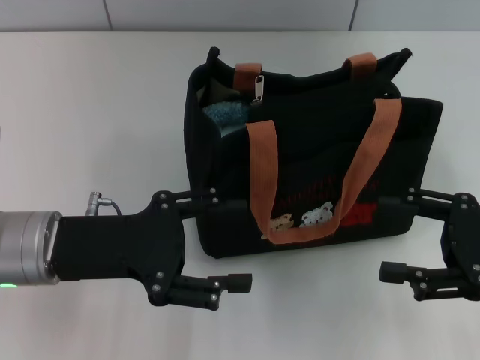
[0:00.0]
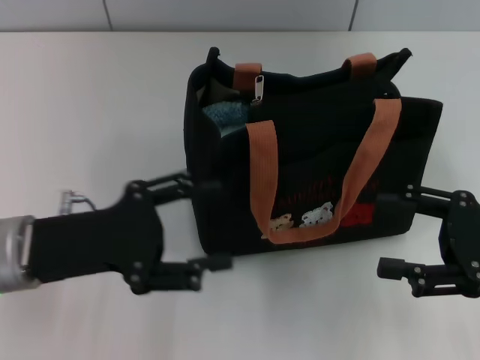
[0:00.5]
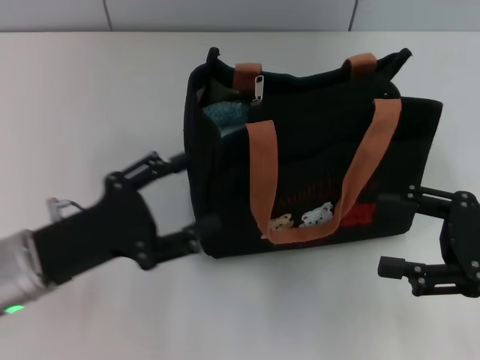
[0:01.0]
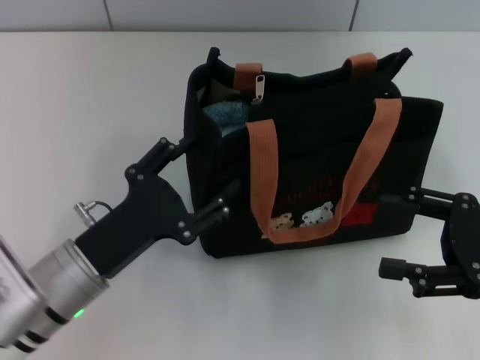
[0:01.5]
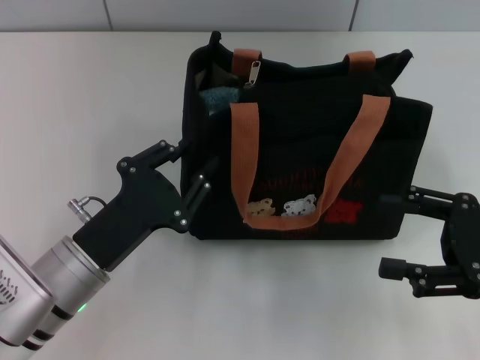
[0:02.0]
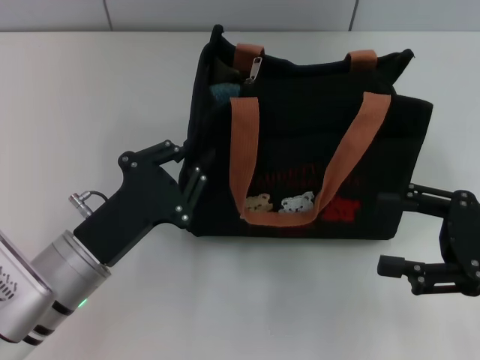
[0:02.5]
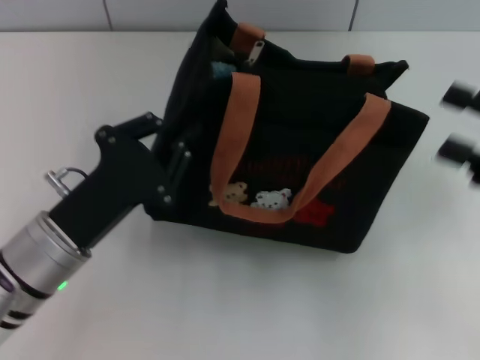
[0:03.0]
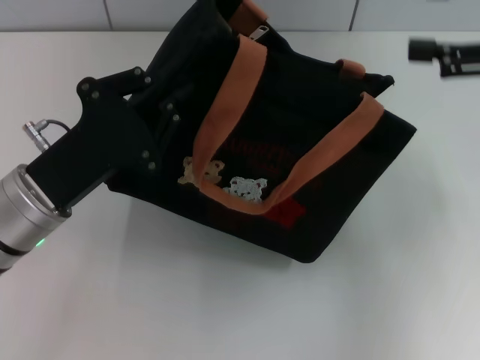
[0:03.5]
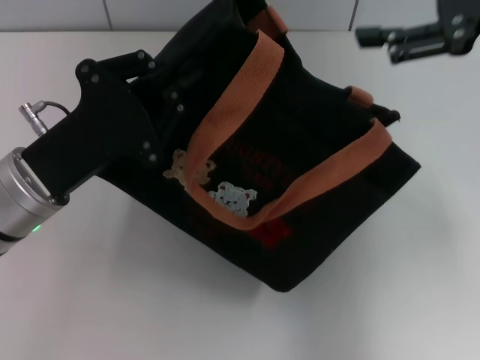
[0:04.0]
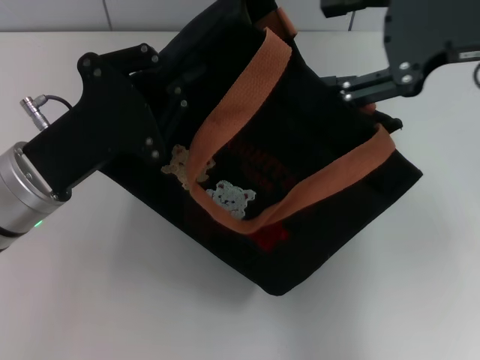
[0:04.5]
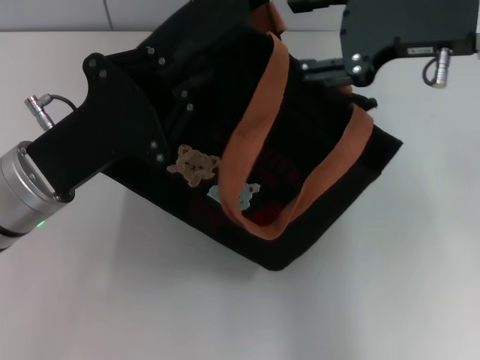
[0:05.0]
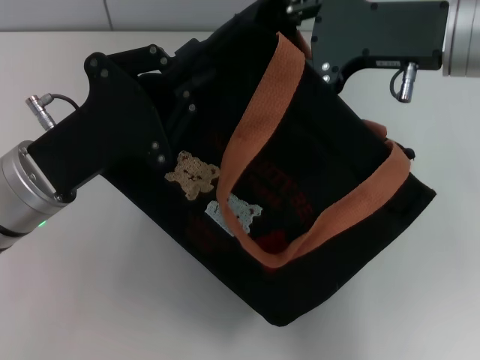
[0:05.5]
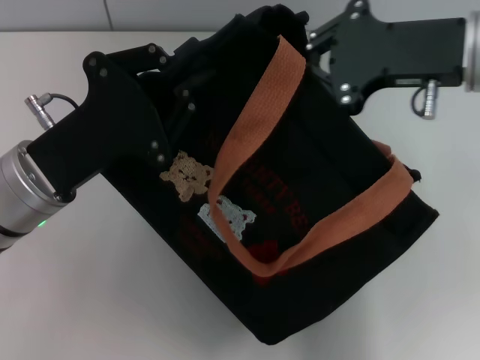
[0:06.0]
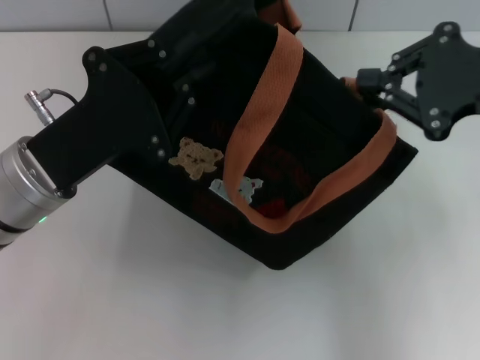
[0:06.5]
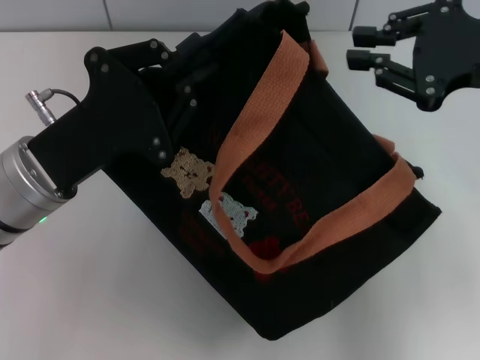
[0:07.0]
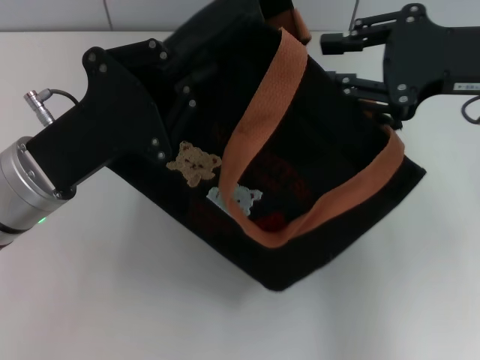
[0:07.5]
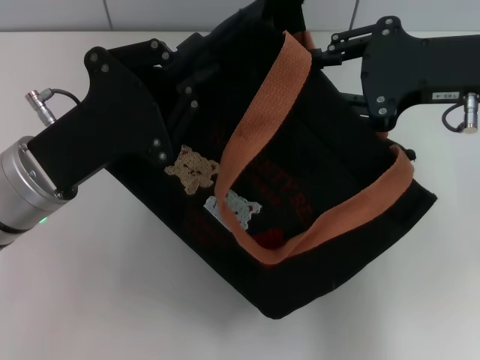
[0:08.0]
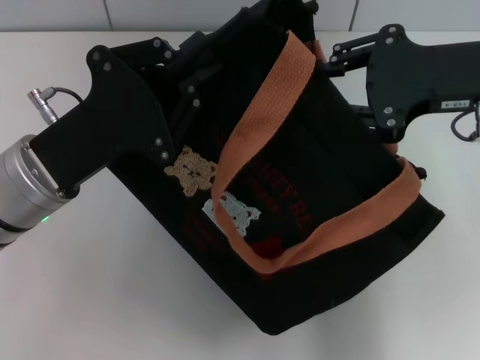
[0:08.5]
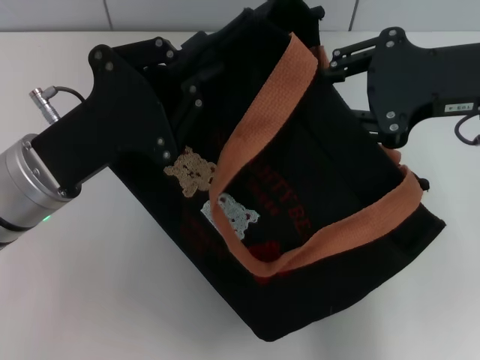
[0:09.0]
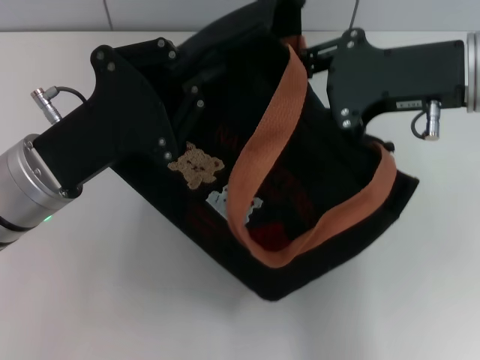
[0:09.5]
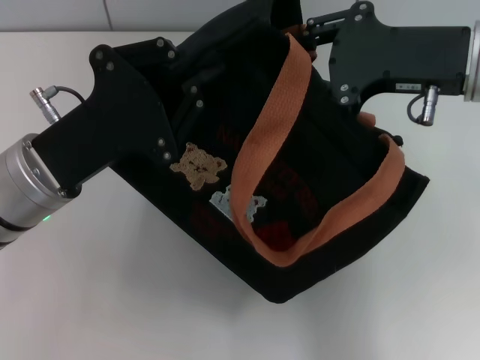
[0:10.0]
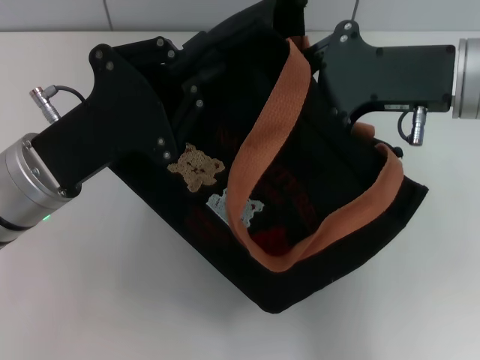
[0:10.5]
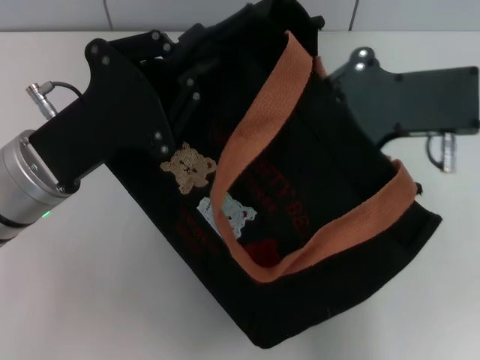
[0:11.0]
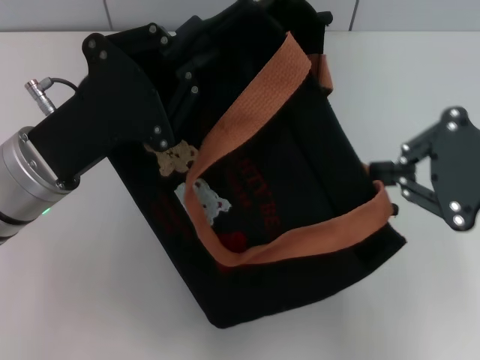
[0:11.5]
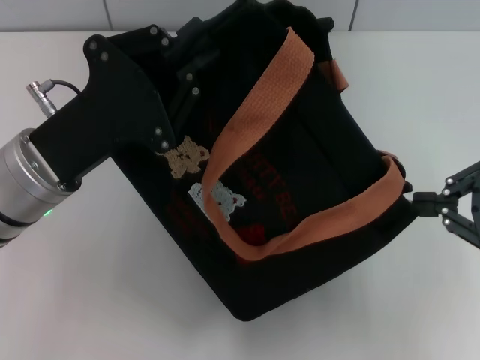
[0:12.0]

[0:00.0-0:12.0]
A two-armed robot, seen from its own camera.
0:00.0 to 0:02.0: The left gripper is displaced downward by some 5 cm, and closes up.
0:02.0 to 0:04.0: The right gripper goes about 20 cm upward and forward. The left gripper travels upward and forward by roughly 10 cm, and closes its fingers.
0:04.0 to 0:06.0: The right gripper goes approximately 10 cm downward and to the left, and closes.
0:06.0 to 0:08.0: The right gripper opens its fingers.
0:08.0 to 0:10.0: There are only small adjustments of the grippers.
0:10.0 to 0:12.0: The right gripper goes approximately 15 cm to the right and backward, and closes up.

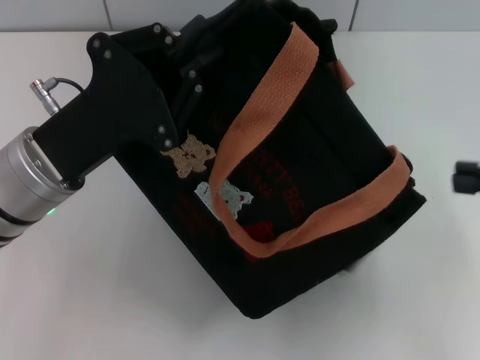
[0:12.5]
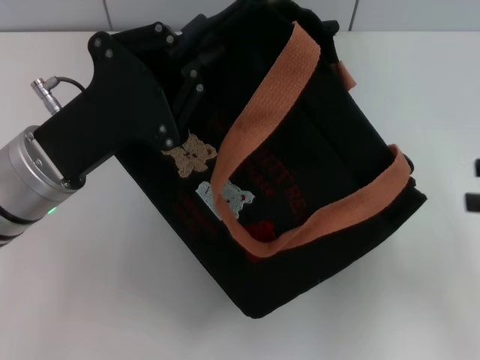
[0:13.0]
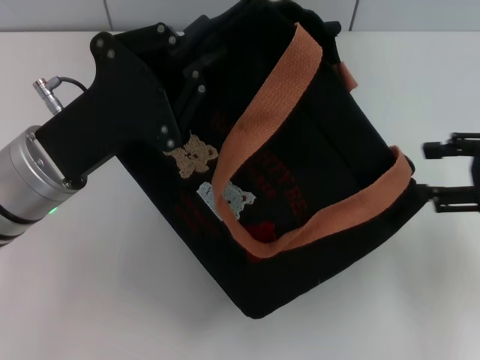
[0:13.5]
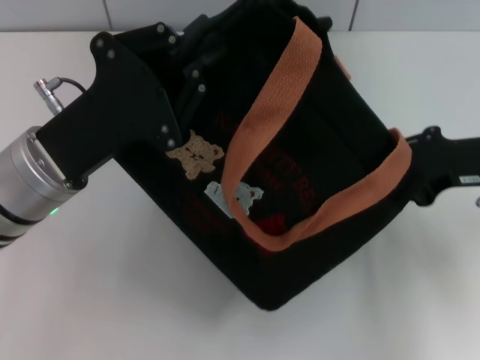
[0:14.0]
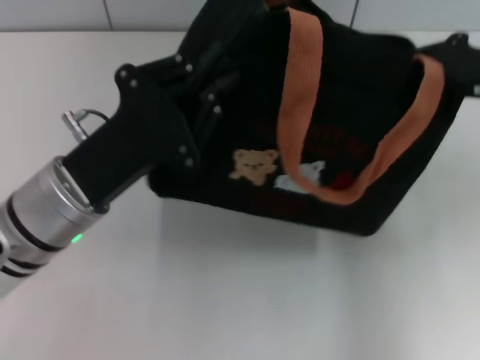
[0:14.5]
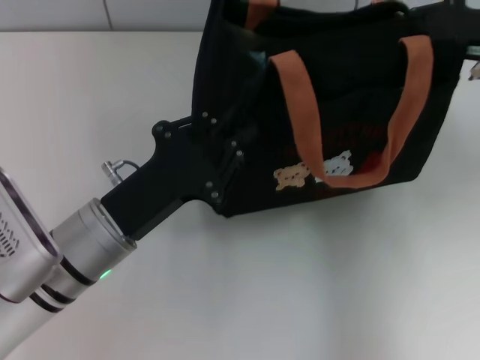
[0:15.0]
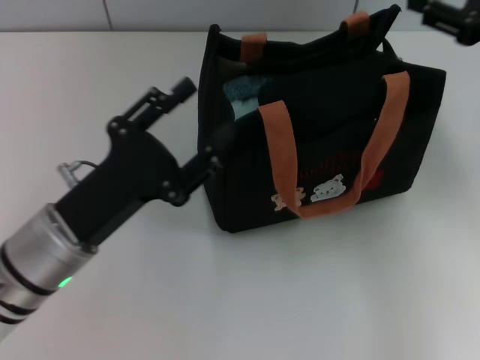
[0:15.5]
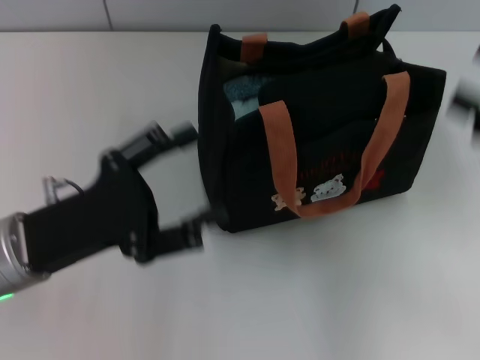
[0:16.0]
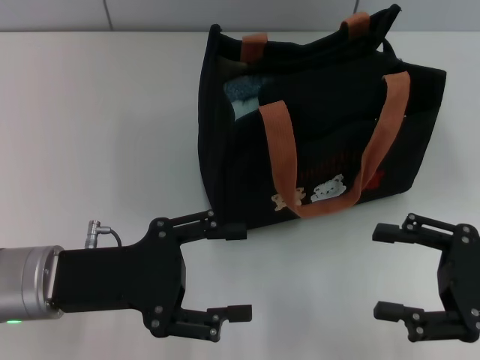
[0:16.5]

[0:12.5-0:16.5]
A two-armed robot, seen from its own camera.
Step, 0:13.0 to 0:15.5: Grab the bag with your left hand.
0:12.5 to 0:14.5: The right gripper goes roughly 15 cm forward and to the left, and opens and closes again.
0:14.5 to 0:16.5: The right gripper moves backward and downward, some 15 cm, and opens its fingers. Meanwhile the left gripper changes place by approximately 5 cm, and opens up.

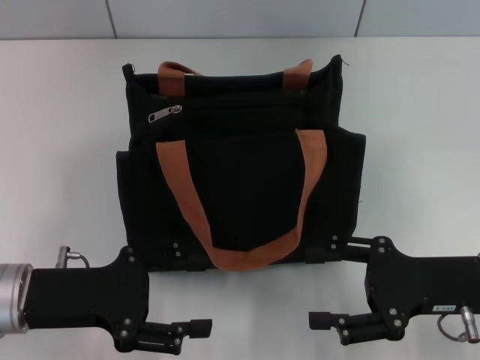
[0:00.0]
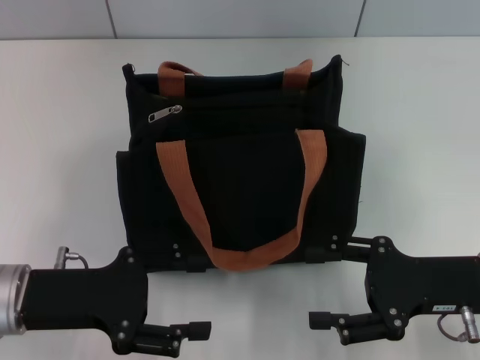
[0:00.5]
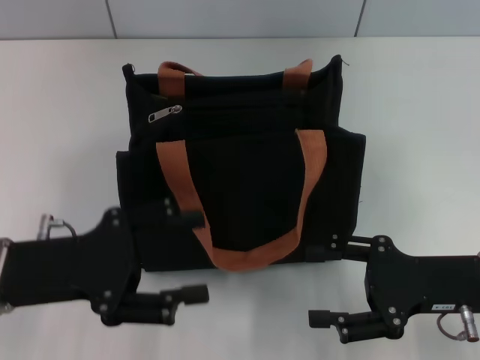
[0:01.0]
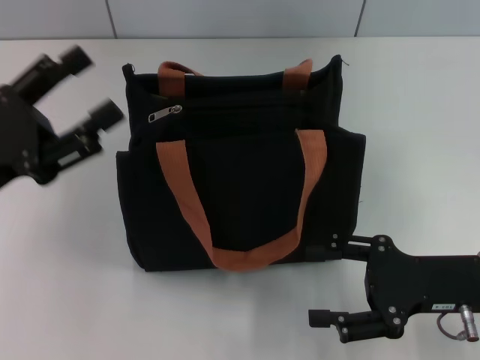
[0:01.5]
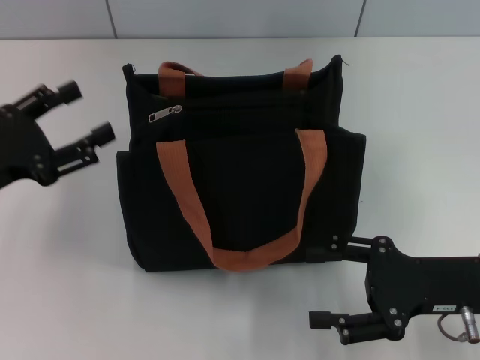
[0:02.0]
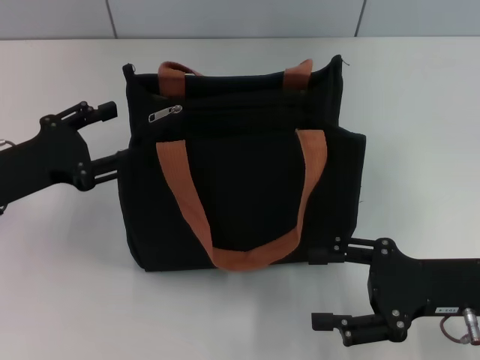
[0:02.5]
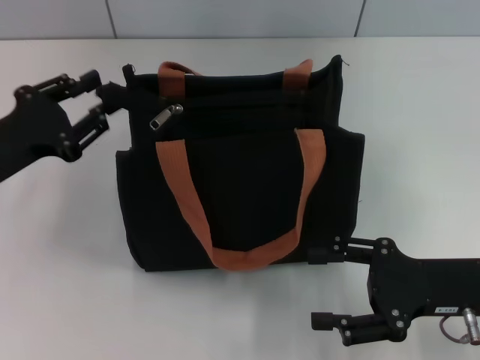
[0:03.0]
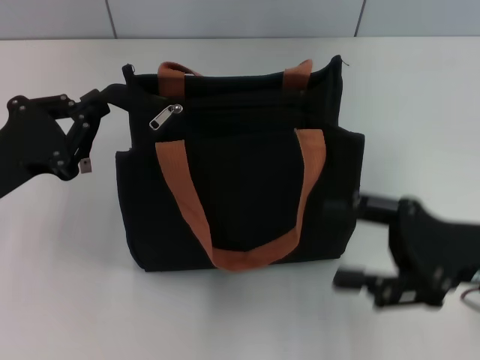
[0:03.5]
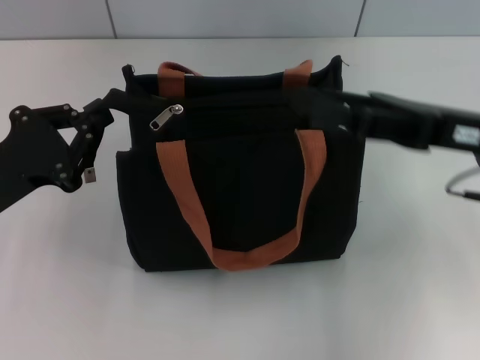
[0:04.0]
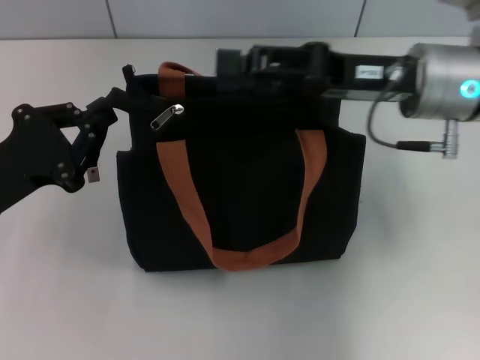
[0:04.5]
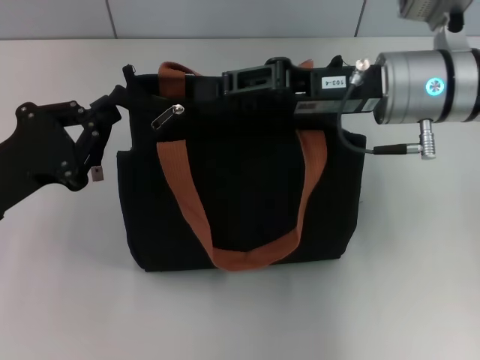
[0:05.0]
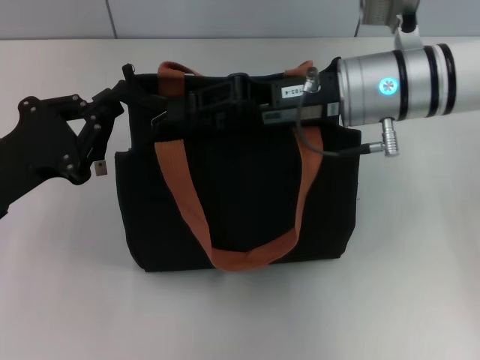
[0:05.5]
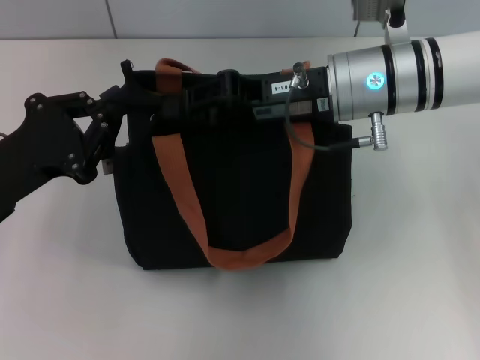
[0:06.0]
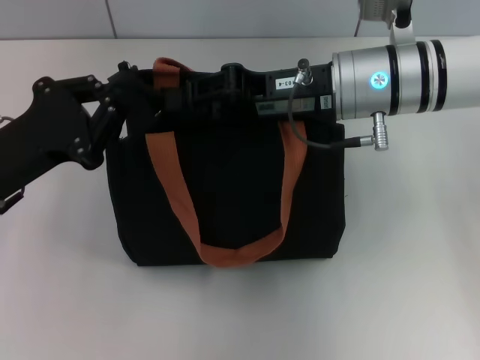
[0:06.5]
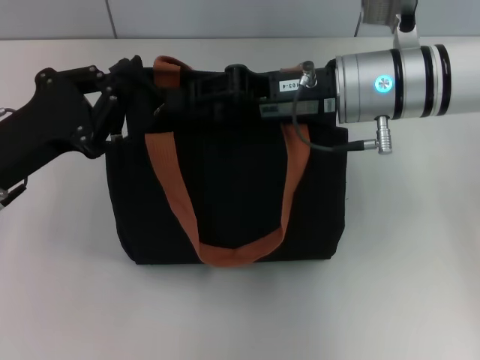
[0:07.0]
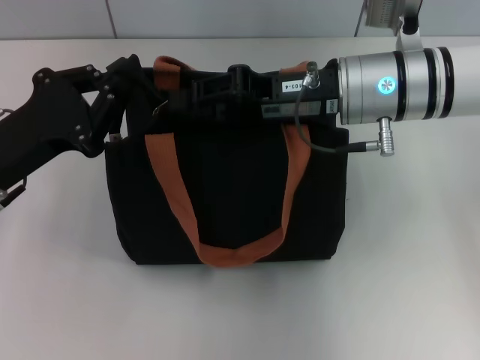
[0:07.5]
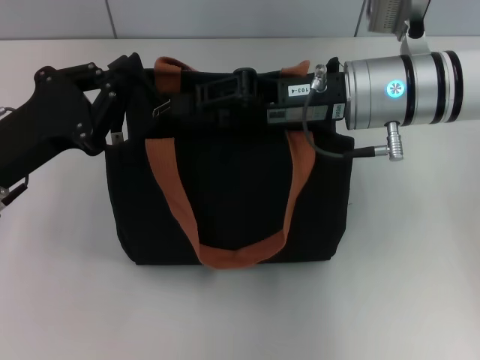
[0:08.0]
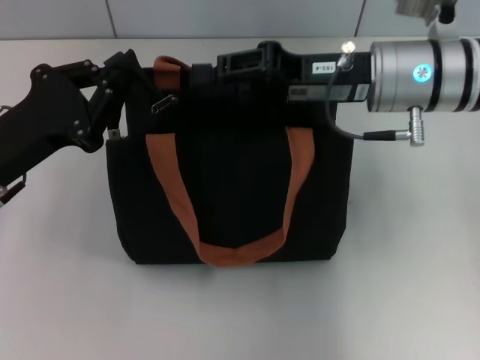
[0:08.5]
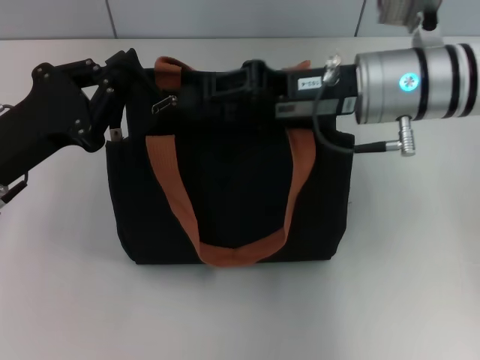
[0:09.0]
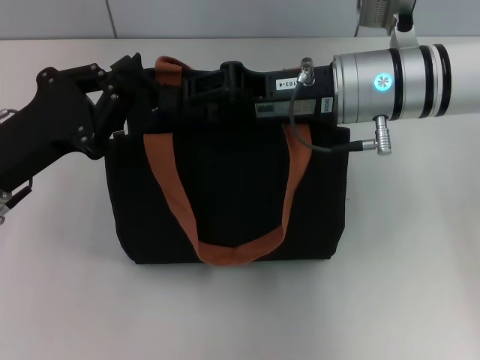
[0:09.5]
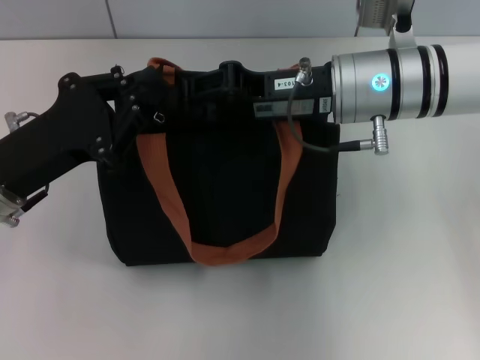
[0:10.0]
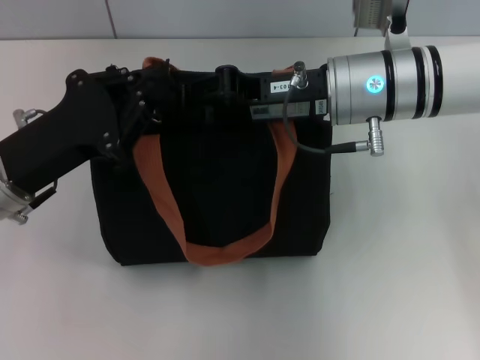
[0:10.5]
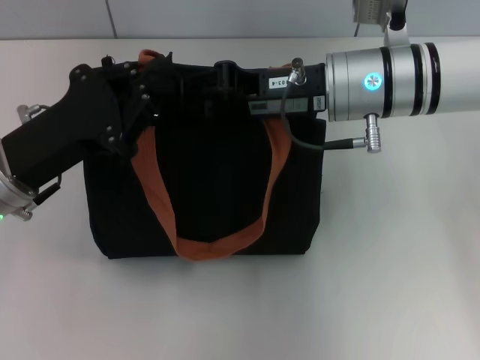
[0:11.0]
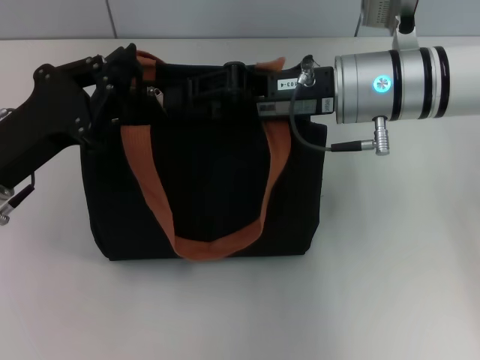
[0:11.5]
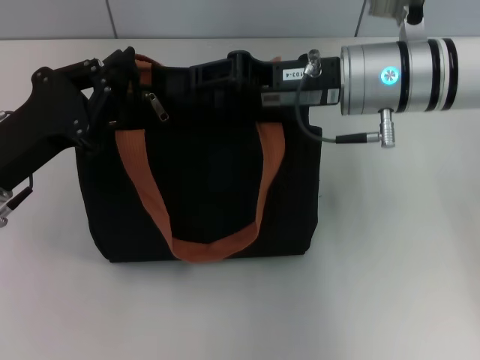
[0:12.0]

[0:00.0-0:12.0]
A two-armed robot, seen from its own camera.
0:00.0 to 0:02.0: The left gripper travels to the left by about 5 cm.
0:02.0 to 0:04.0: The left gripper closes up. Meanwhile the right gripper heads upward and forward, covering about 10 cm.
0:04.0 to 0:06.0: The right gripper moves to the left and forward, about 15 cm, and closes up.
0:06.0 to 0:10.0: The grippers move only a little.
